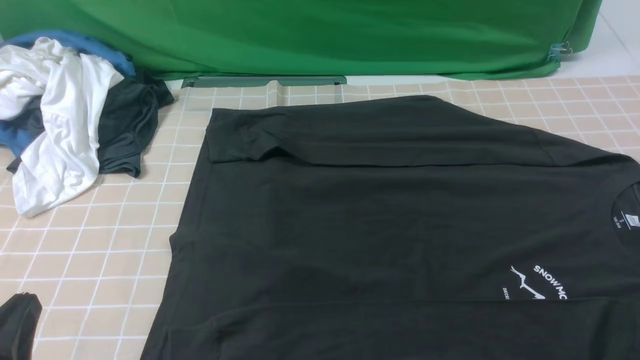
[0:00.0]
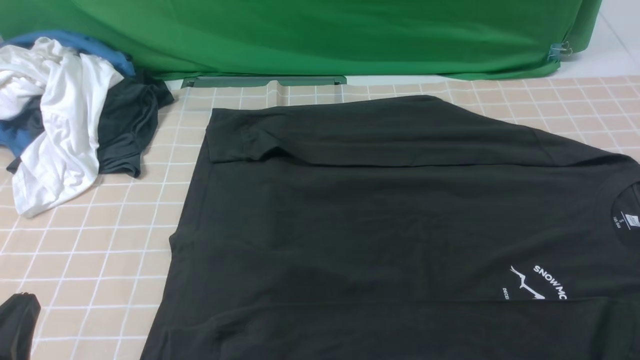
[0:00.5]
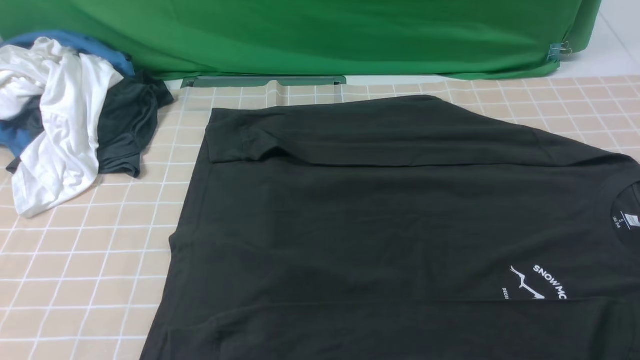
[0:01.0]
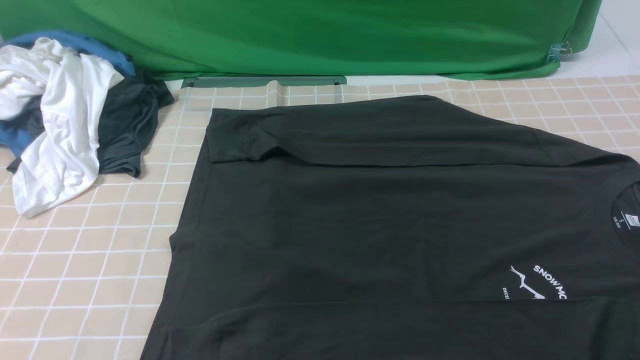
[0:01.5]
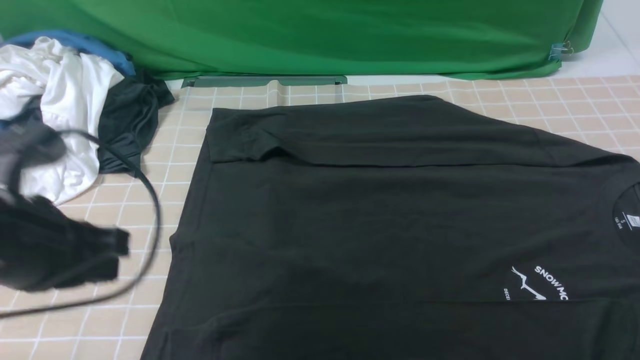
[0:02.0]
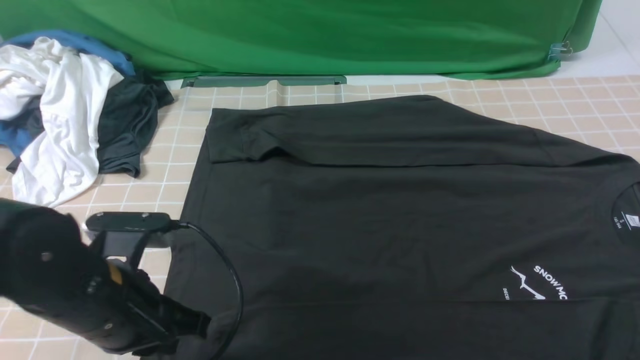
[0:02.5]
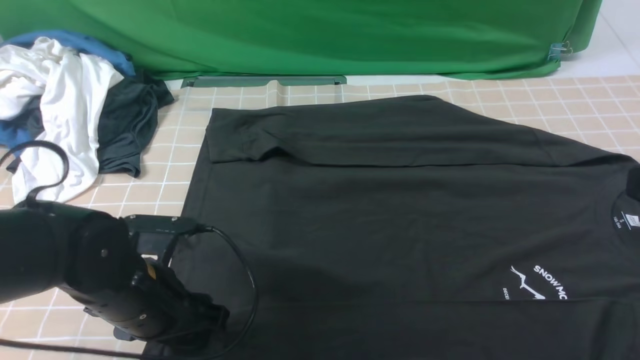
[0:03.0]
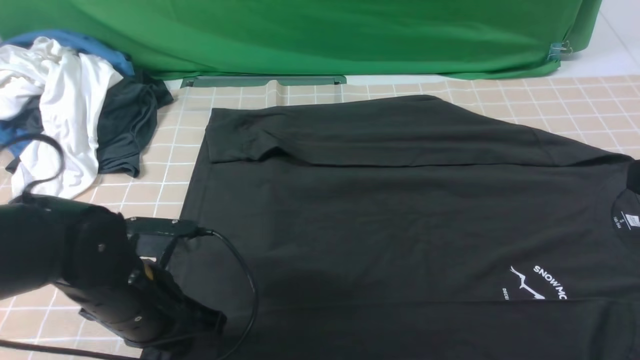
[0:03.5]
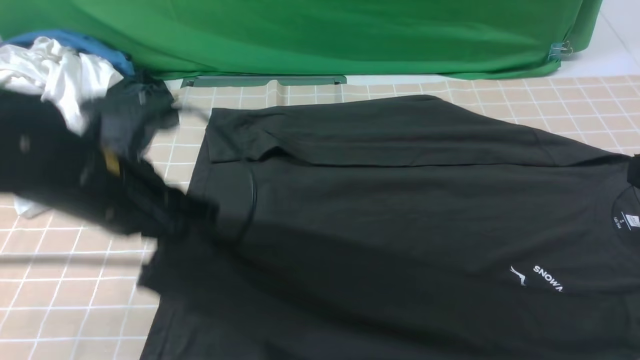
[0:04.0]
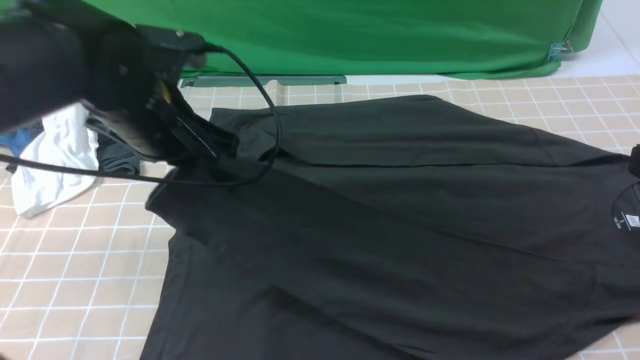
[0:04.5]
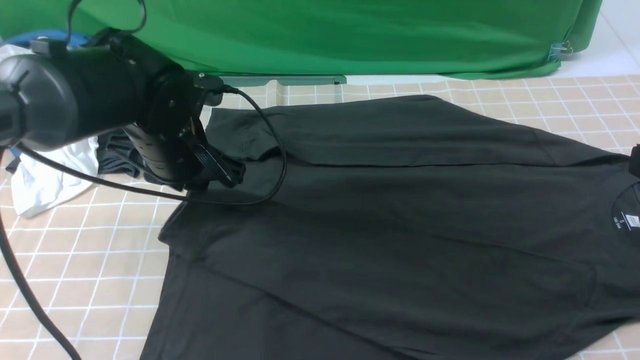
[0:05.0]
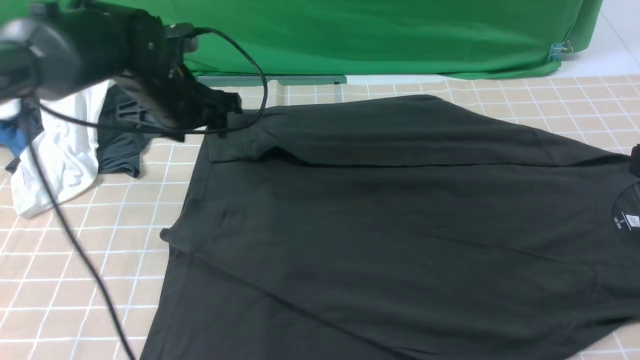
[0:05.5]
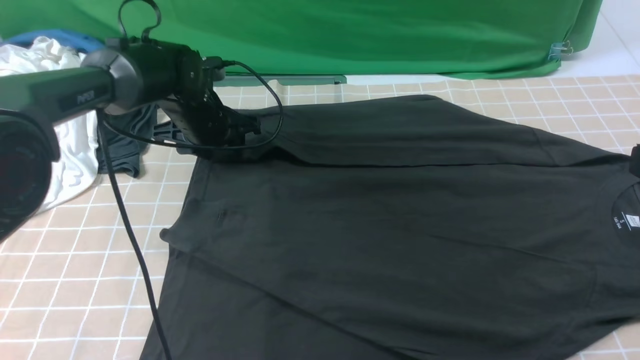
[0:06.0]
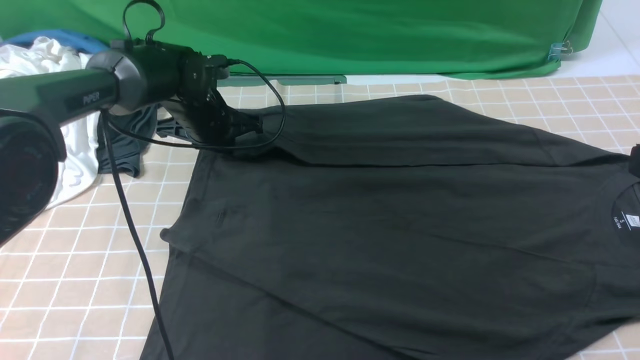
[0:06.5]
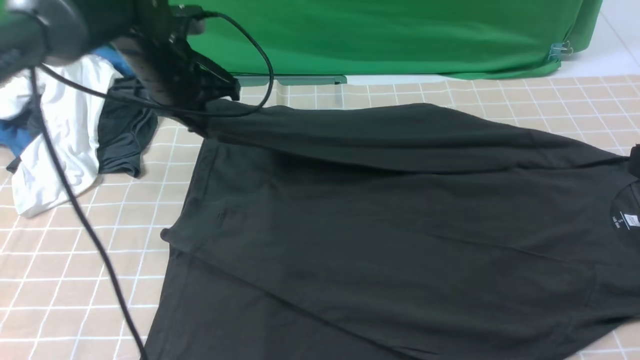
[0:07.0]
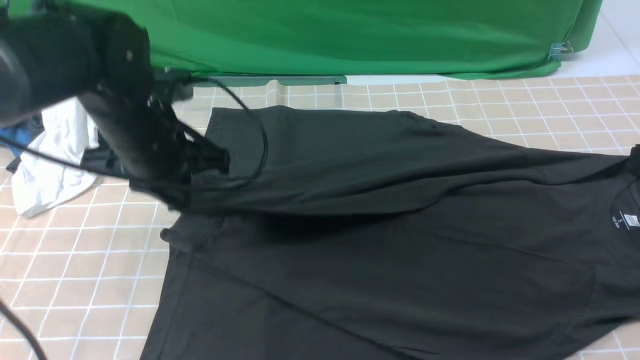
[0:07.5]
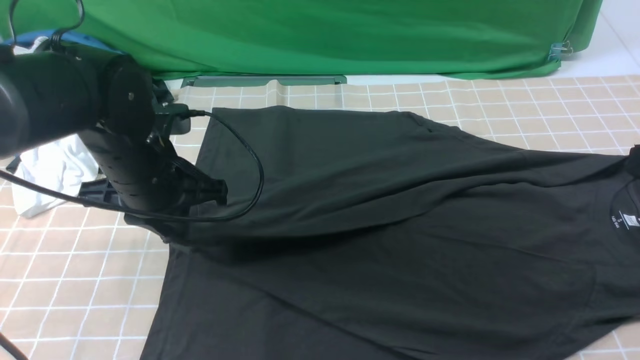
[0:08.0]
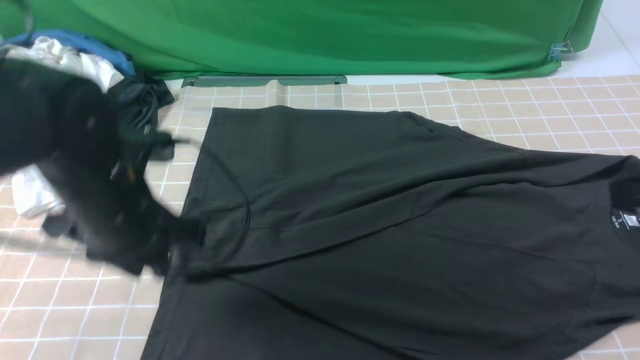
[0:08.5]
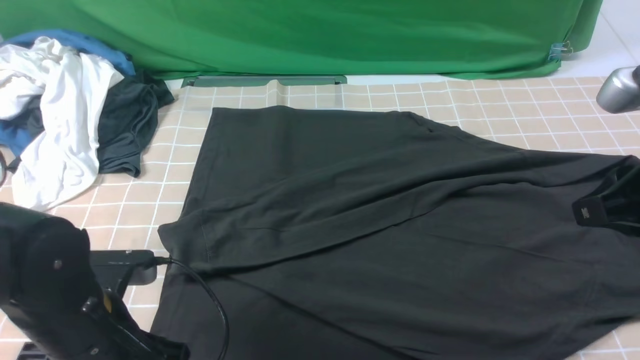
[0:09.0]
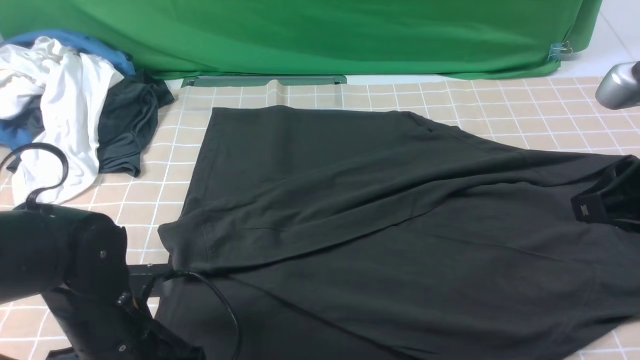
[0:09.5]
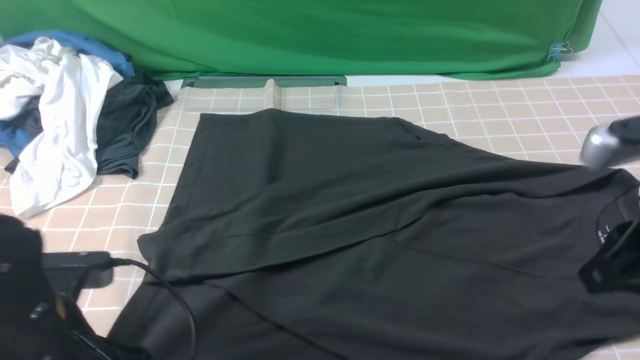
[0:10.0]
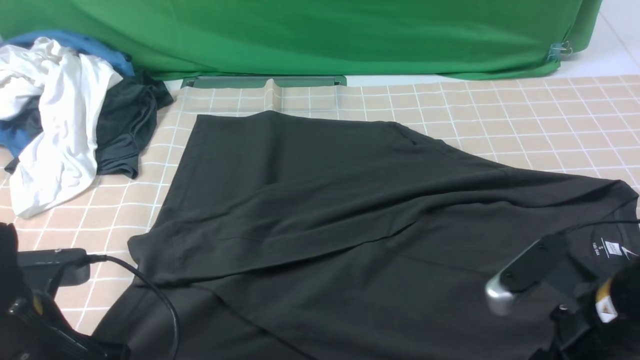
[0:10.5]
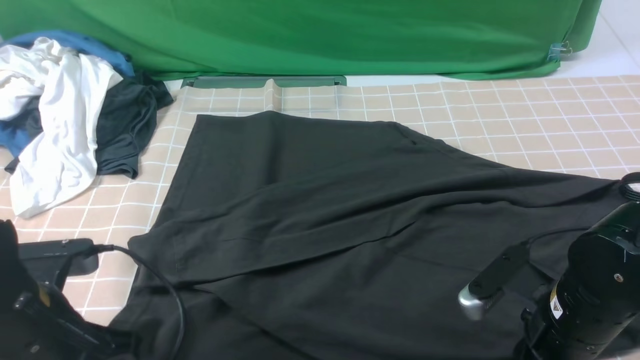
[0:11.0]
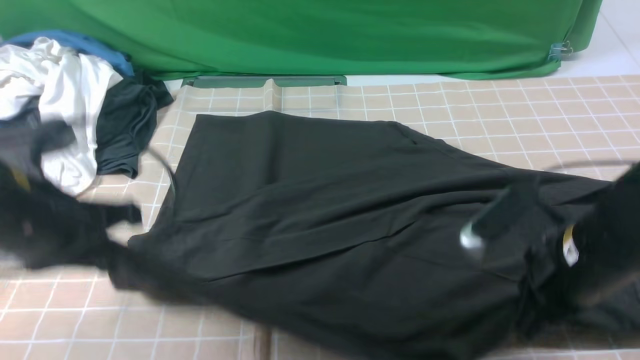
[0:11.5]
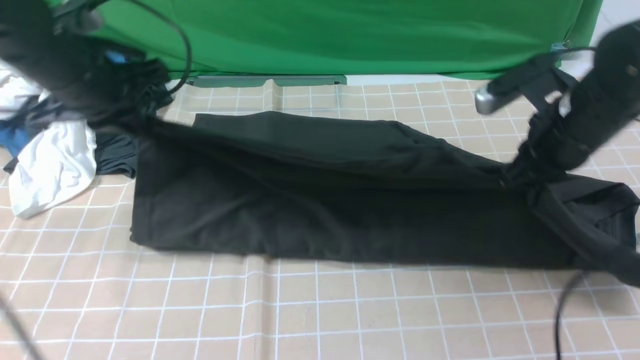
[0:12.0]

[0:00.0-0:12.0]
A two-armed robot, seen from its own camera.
Step, 0:00.0 to 0:03.0: use the left arm to clamp the cuff closest to it.
Step, 0:03.5 to 0:05.0: use the left arm to drag and place the cuff at the centered position on the left edge of the fabric.
Step, 0:05.5 to 0:06.0: use the left arm to clamp the cuff farthest from it.
Step, 0:06.5 to 0:08.0: use the left arm to drag and drop the cuff onto the cuff closest to the left arm.
Step, 0:08.5 to 0:11.0: use both arms simultaneously to clamp the lower edge of the clothing fabric.
0:00.0 to 0:02.0: The left gripper is displaced forward and upward by about 15 cm.
0:02.0 to 0:04.0: The right gripper travels upward and forward by some 15 cm; the left gripper shifts about 10 cm forward and to the right, goes downward and returns, roughly 10 cm each way, and opens, then closes again.
0:04.0 to 0:06.0: The left gripper goes roughly 25 cm forward and downward, and opens its fingers.
0:06.0 to 0:08.0: The left gripper shifts roughly 15 cm backward and upward, and closes its fingers.
0:08.0 to 0:10.0: The right gripper goes roughly 5 cm downward. The left gripper is displaced backward by roughly 15 cm, and opens, then closes again.
0:10.0 to 0:12.0: The grippers both shift forward by about 20 cm. The right gripper opens, then closes once more.

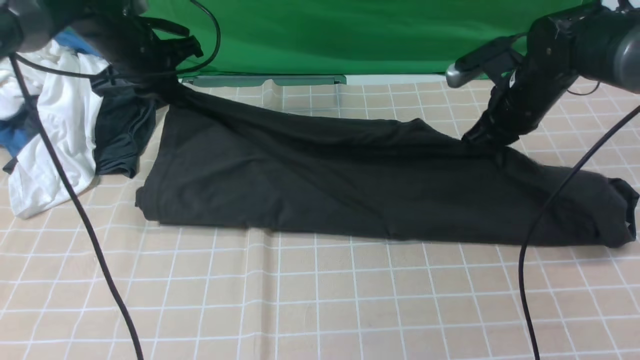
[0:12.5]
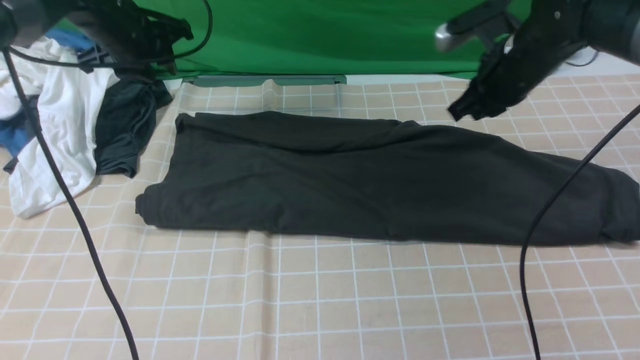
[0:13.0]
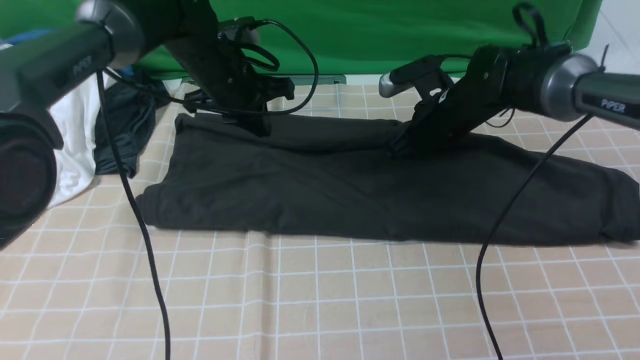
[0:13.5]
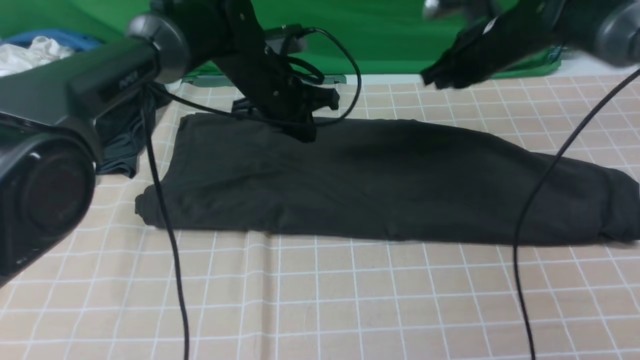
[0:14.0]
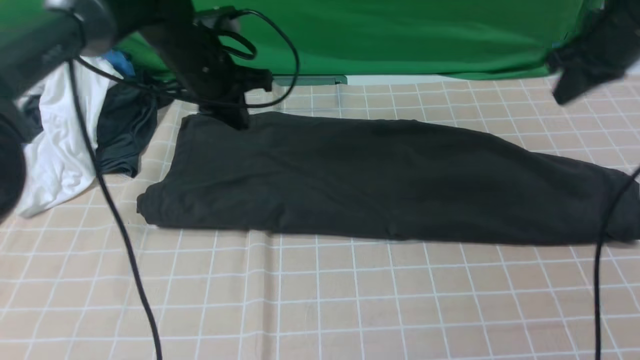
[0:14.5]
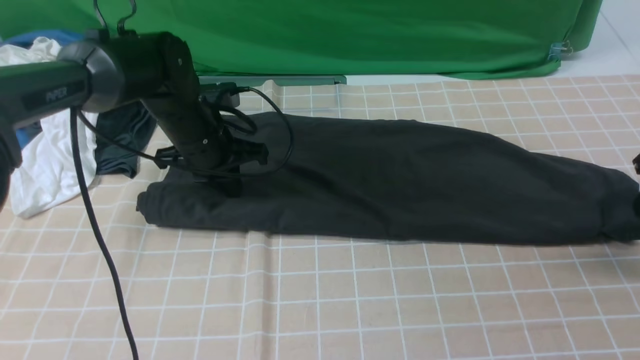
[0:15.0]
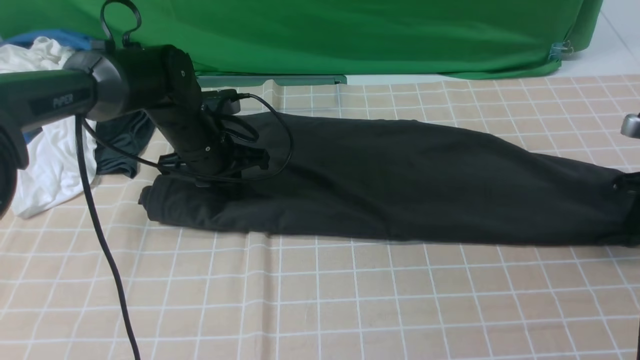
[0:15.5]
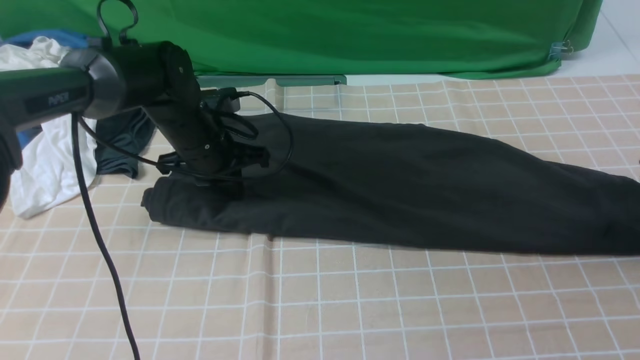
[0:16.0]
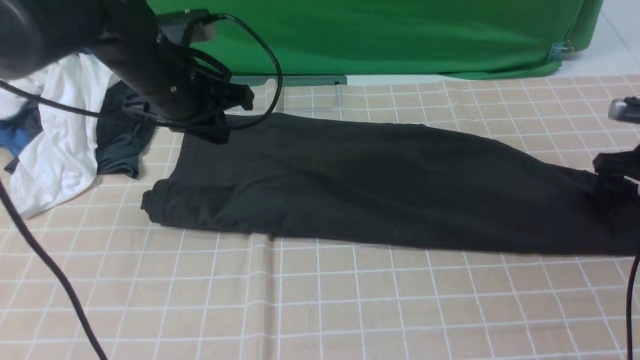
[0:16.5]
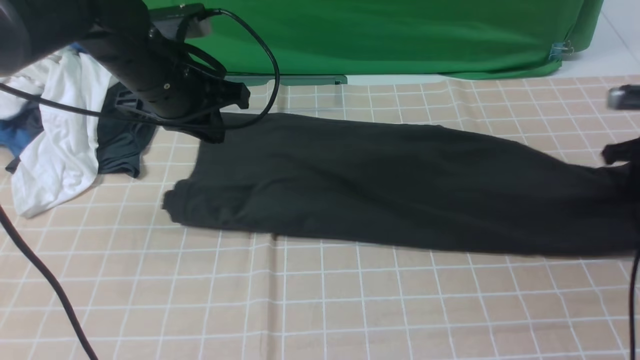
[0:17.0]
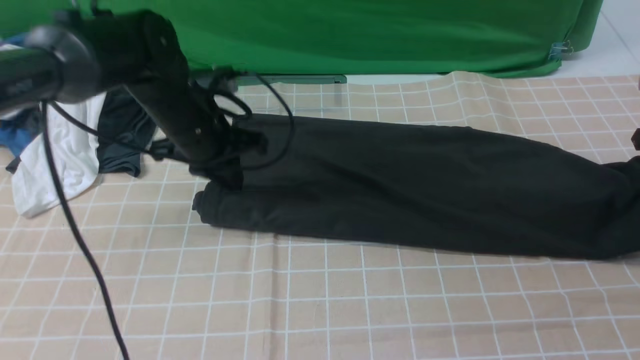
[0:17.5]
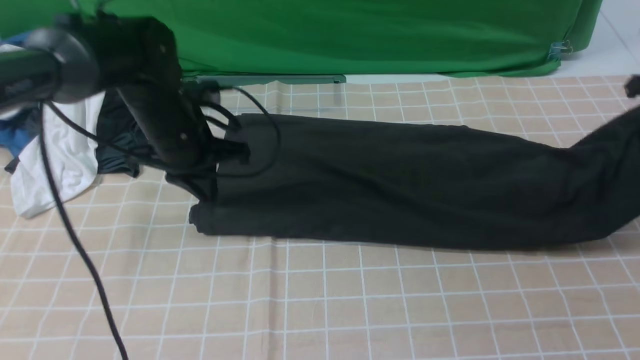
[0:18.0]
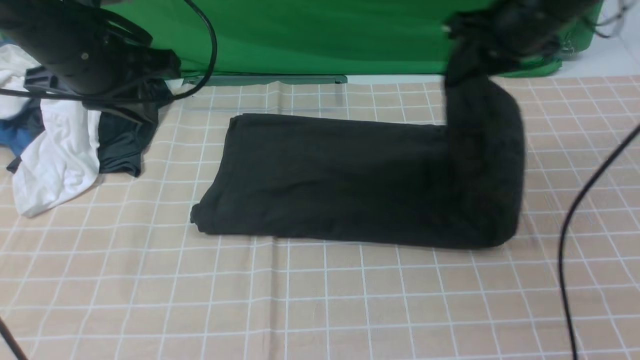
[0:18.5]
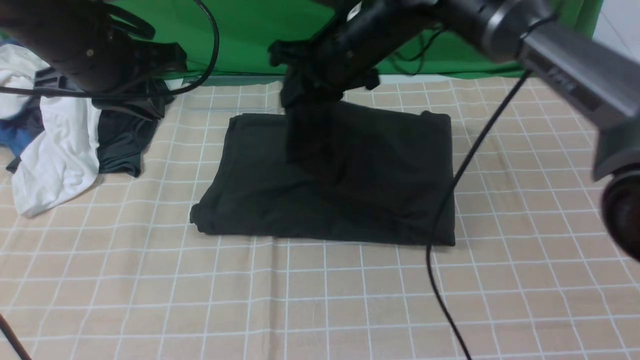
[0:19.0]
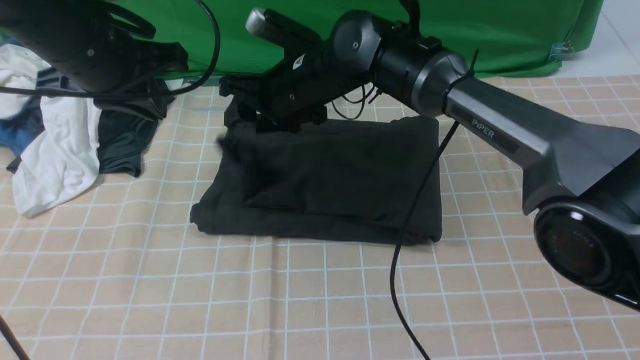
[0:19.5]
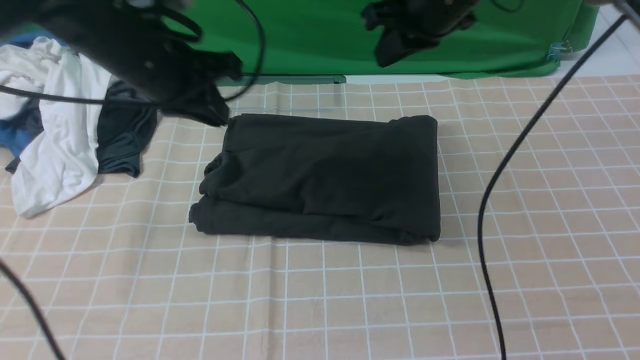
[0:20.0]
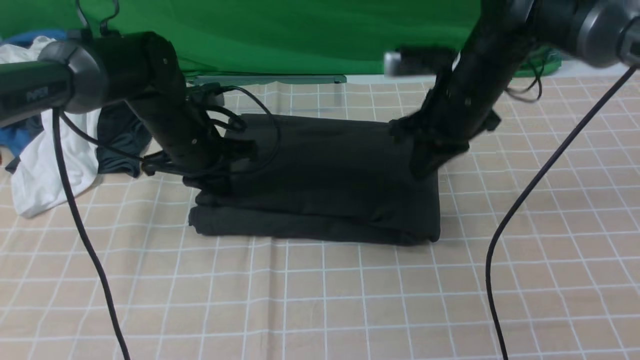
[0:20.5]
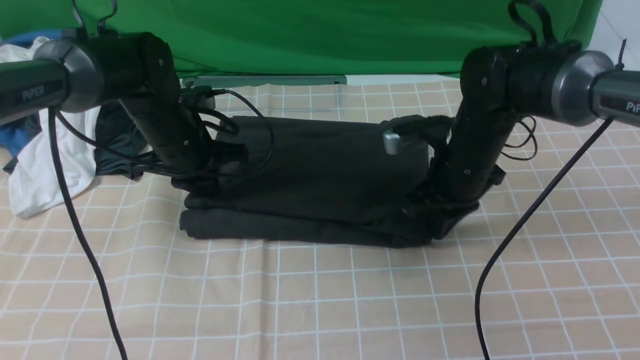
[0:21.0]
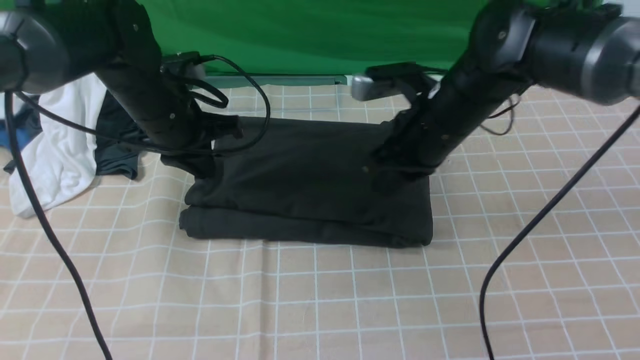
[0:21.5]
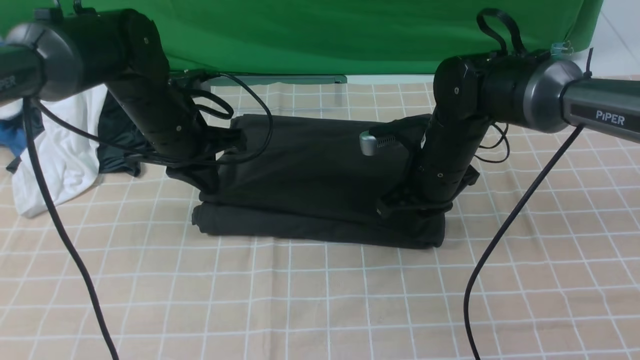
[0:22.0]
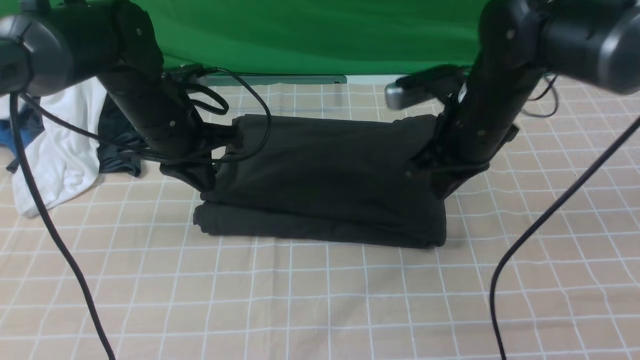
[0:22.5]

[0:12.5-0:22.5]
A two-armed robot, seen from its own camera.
Step, 0:13.0 to 0:16.5: use the right arm to clamp the right edge of the fabric.
Step, 0:17.0 to 0:19.5: use the right arm to drag the right edge of the fabric to the left and folds it over the left edge.
0:12.5 to 0:14.5: The left gripper travels to the right by roughly 10 cm. Meanwhile the right gripper shifts approximately 10 cm to the right and upward.
0:14.5 to 0:16.5: The left gripper travels backward by roughly 5 cm, and travels downward and back again, about 5 cm each way. Meanwhile the right gripper is displaced downward and to the right by some 15 cm, and opens up.
0:16.5 to 0:18.5: The right gripper shifts about 25 cm to the left and upward, and closes up, while the left gripper goes approximately 5 cm upward and to the left.
0:18.5 to 0:20.5: The left gripper travels downward by approximately 15 cm. Meanwhile the right gripper travels downward by some 10 cm, travels to the left and back again, approximately 20 cm each way, and opens, then closes once more.
